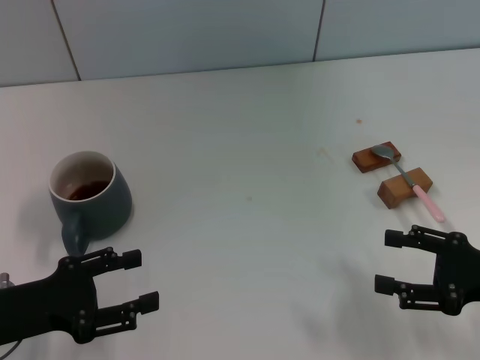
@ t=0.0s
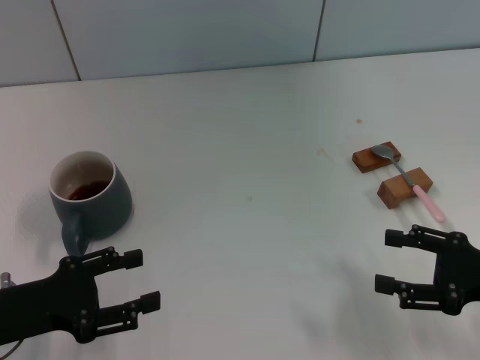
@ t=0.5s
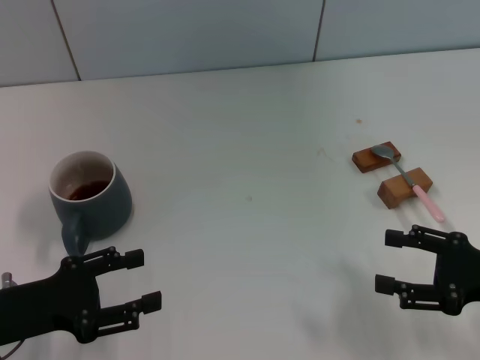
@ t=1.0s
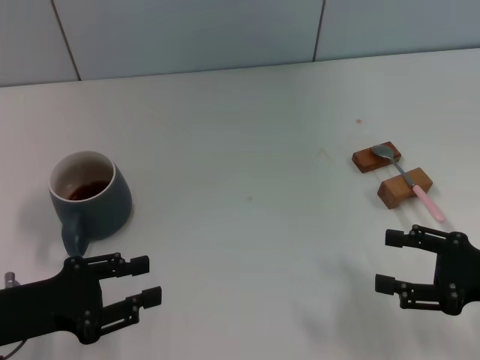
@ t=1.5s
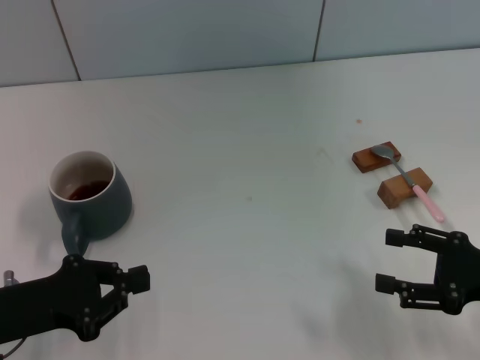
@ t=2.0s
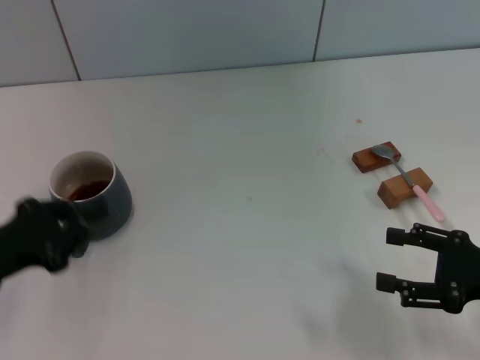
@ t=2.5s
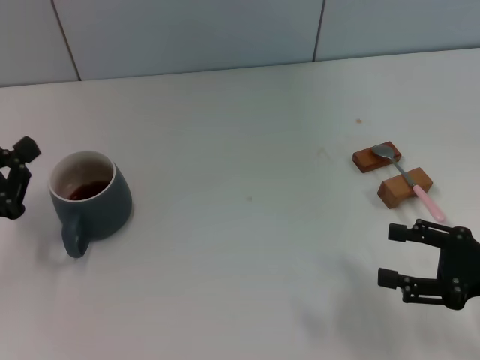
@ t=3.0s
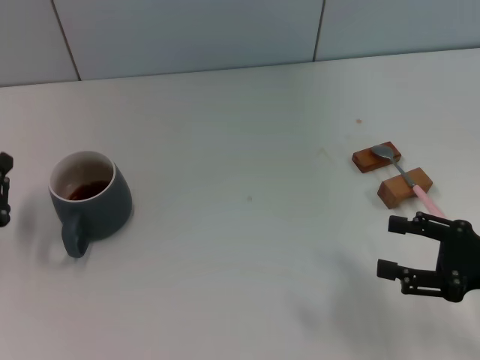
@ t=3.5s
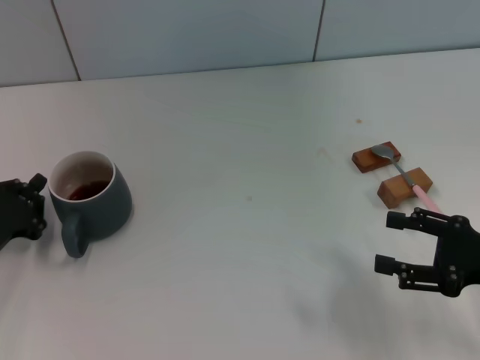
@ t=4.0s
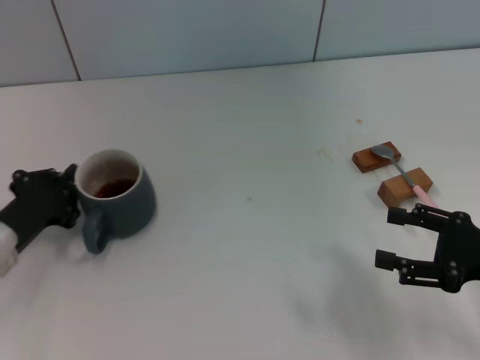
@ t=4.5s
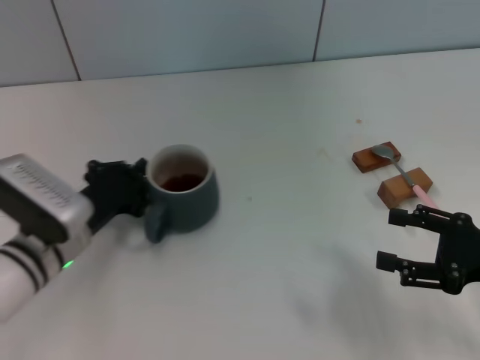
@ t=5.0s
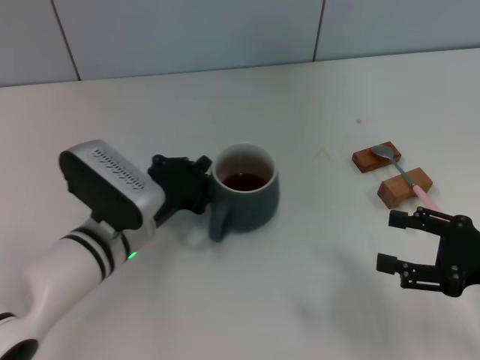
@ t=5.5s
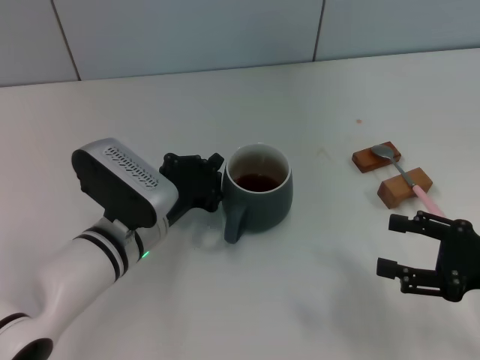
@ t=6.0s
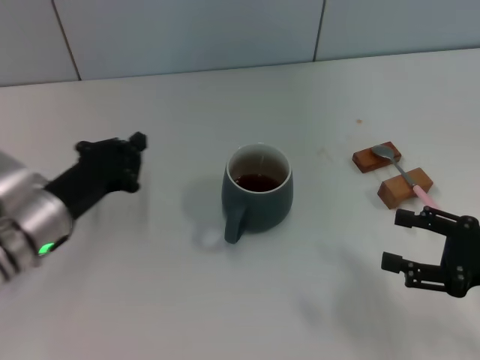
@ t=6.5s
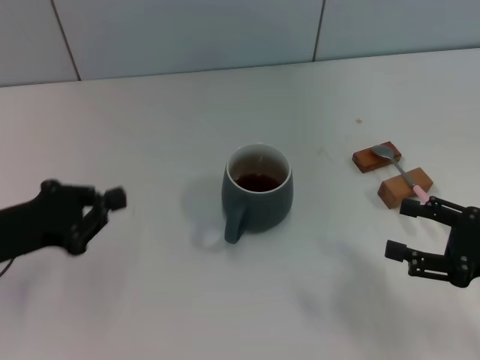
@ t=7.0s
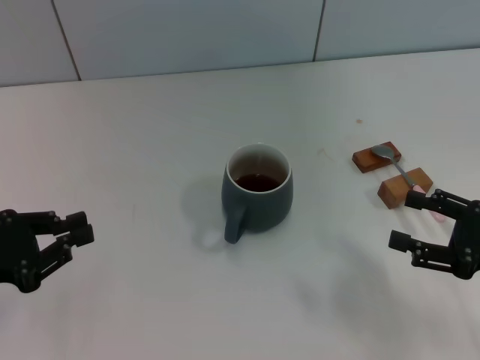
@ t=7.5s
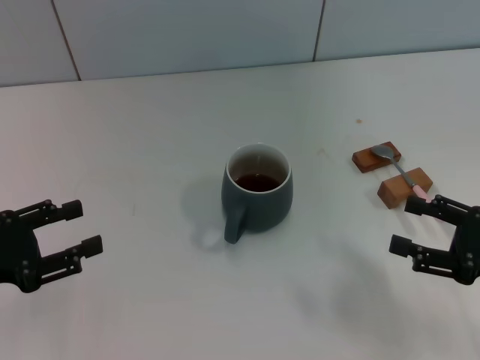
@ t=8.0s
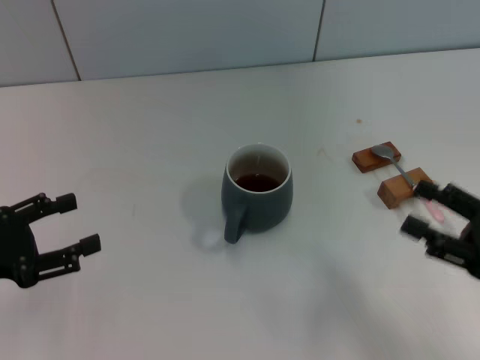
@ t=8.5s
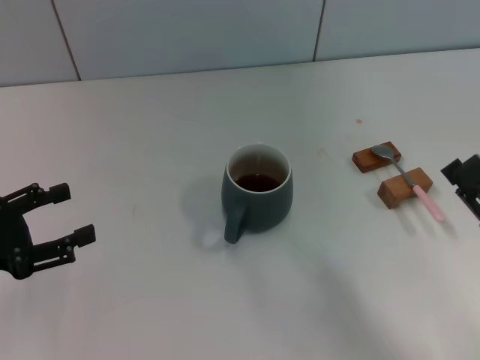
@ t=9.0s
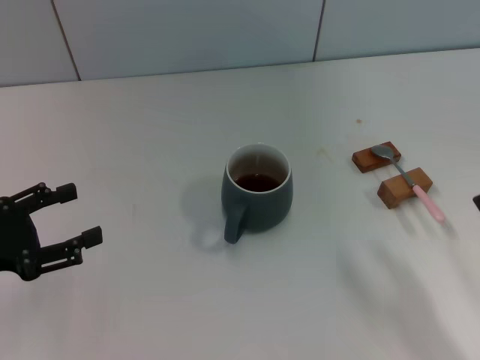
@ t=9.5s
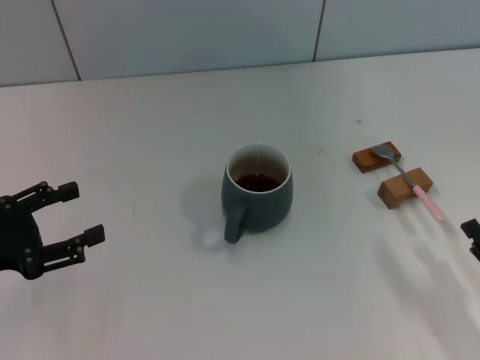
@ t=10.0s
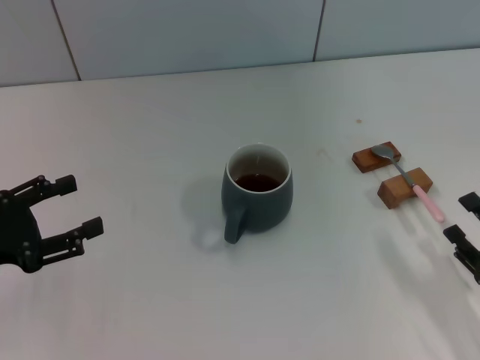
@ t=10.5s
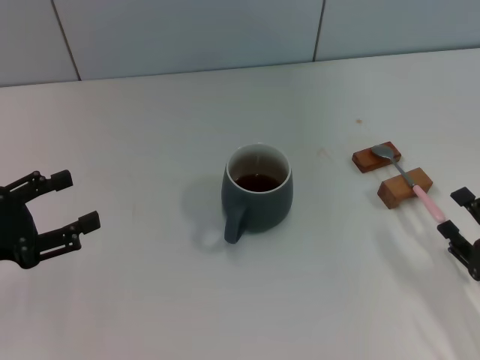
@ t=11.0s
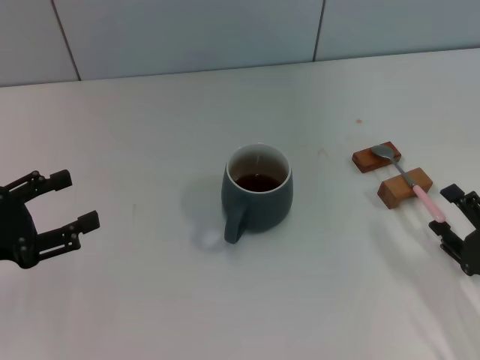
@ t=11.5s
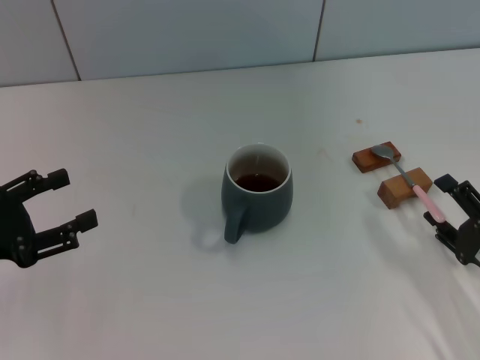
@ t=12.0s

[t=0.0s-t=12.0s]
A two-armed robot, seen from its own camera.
Task of the whole recording: Move the grey cup to the center, lift the pink spoon, stir it three times in the cup, and put the spoon into the cup.
Step, t=0.0s to t=6.5s: Move the cup with coffee to the center of view with the left gripper.
t=0.0s to t=2.0s: The left gripper closes.
t=2.0s to t=4.0s: The left gripper shifts by some 5 cm, and closes.
t=4.0s to t=6.0s: The left gripper travels to the right by about 20 cm.
t=6.0s to t=8.0s: The left gripper heads to the left, covering about 20 cm, and opens up.
t=8.0s to t=10.0s: The left gripper opens its fingers. Meanwhile the right gripper heads backward and downward, covering approximately 10 cm.
t=10.0s to t=12.0s: The right gripper shifts some 5 cm forward.

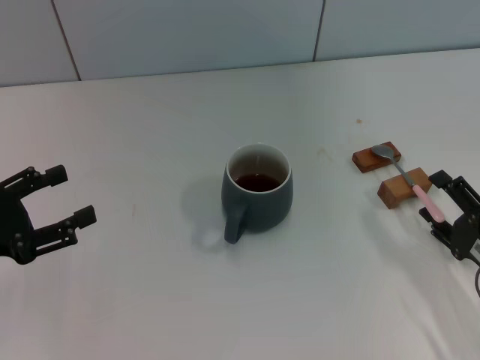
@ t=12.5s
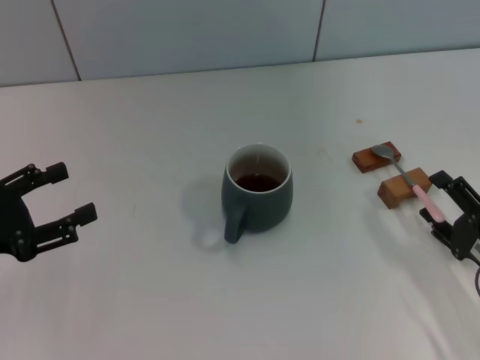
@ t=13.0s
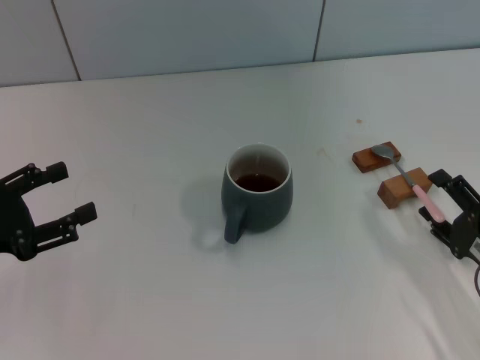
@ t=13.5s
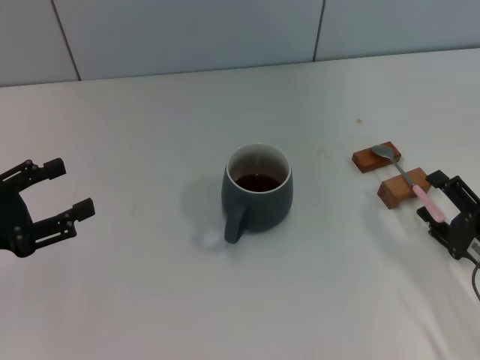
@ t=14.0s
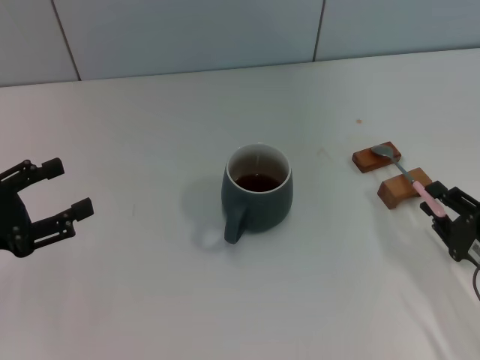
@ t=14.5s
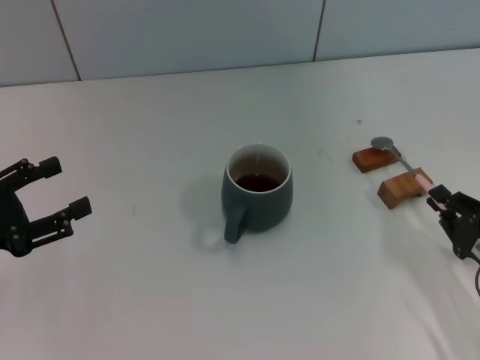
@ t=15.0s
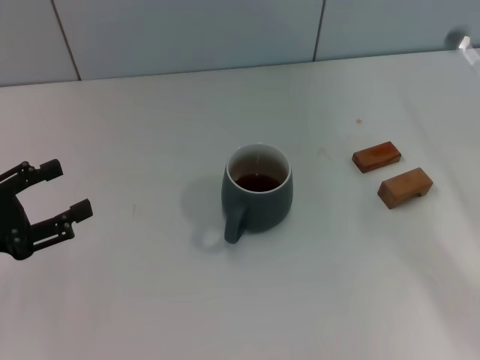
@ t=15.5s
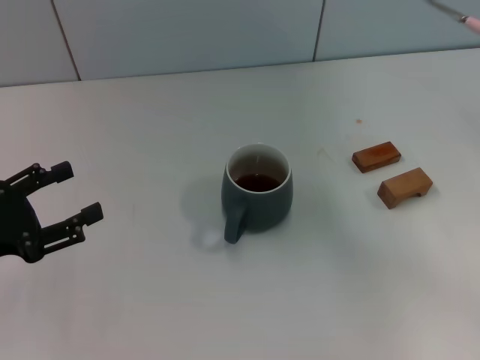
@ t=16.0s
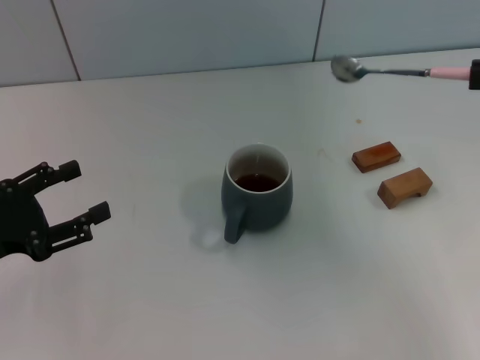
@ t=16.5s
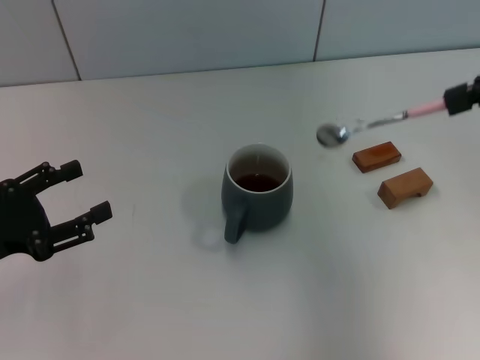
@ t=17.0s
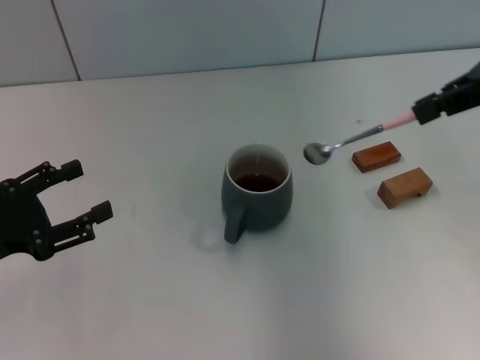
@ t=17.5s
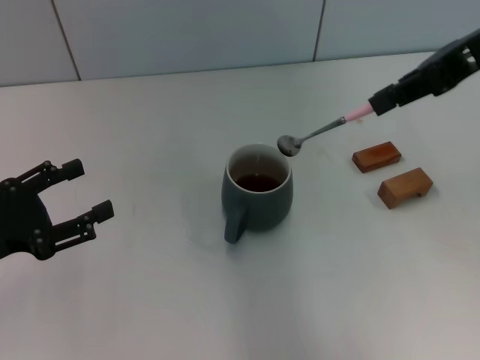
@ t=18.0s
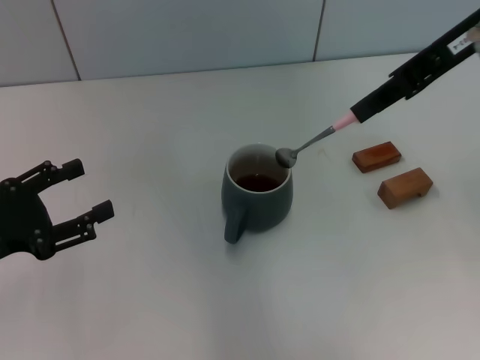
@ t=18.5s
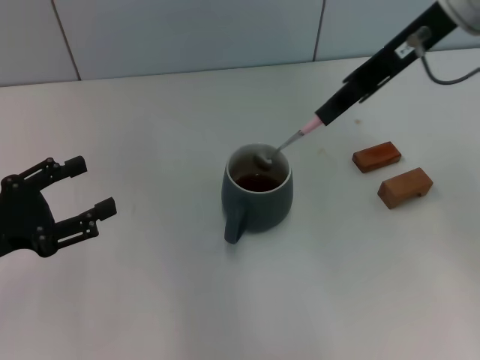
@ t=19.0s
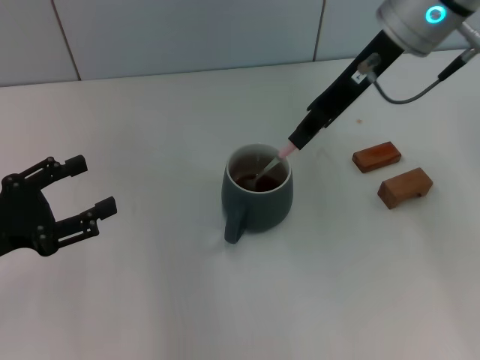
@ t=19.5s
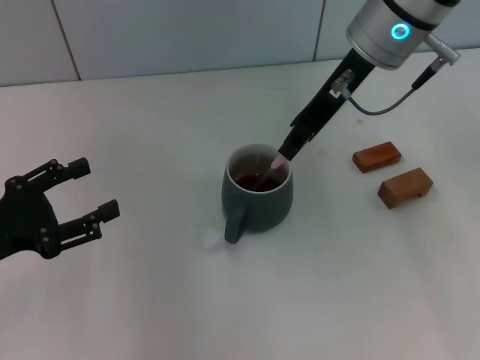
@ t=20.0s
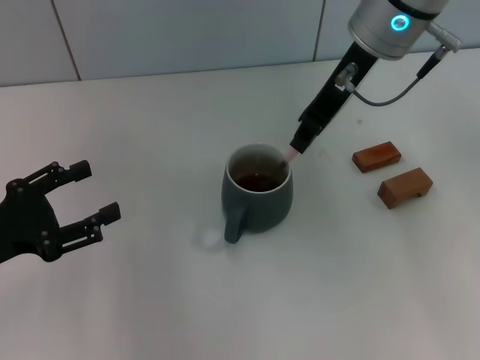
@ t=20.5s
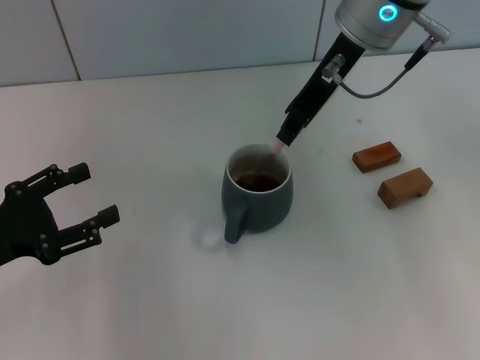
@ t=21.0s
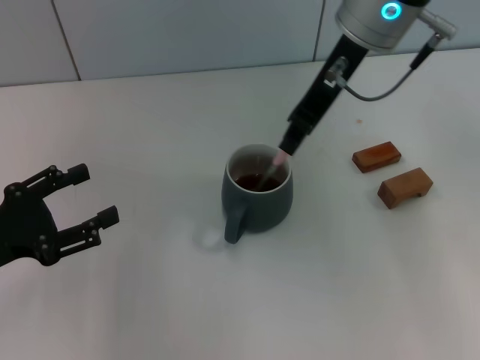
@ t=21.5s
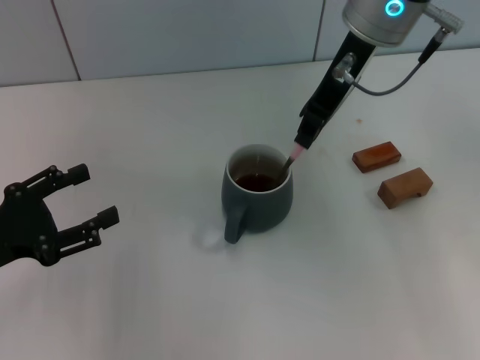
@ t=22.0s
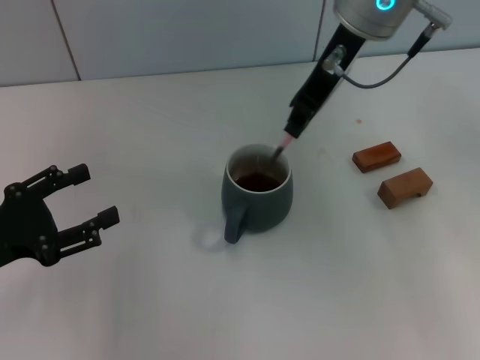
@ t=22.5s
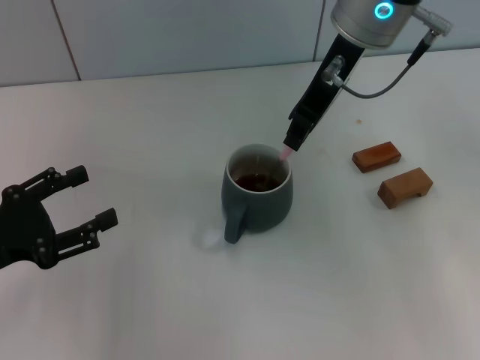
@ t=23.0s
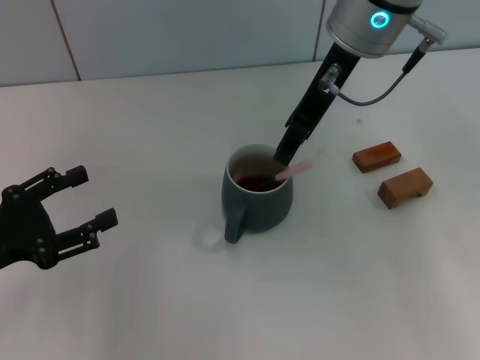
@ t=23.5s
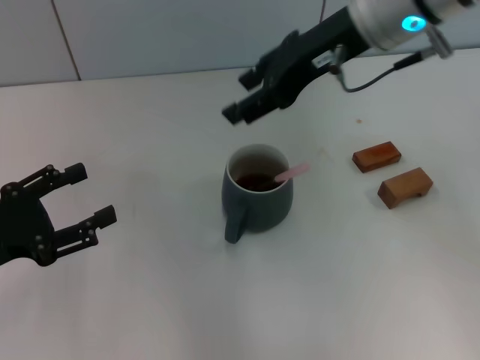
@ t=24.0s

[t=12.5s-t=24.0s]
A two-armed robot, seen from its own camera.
Task of the whole recording: Move the grey cup to the center, lift the pink spoon, stir it three times in the cup, and put the spoon into the cup.
Step, t=12.5s to t=15.0s: Pick up the spoon with the right gripper.
Step, t=15.5s to t=23.5s: Stir the coffee in the cup with the right gripper.
t=12.5s to t=14.5s: Neither gripper changes place.
t=14.5s to t=16.5s: The right gripper heads upward, covering approximately 25 cm, and closes.
t=16.5s to t=18.5s: The right gripper moves to the left and forward, some 15 cm.
t=18.5s to t=20.0s: The right gripper heads to the left and downward, covering approximately 10 cm.
t=20.0s to t=22.0s: The grippers stay close to where they were, moving slightly.
t=22.0s to t=24.0s: The right gripper opens its fingers.

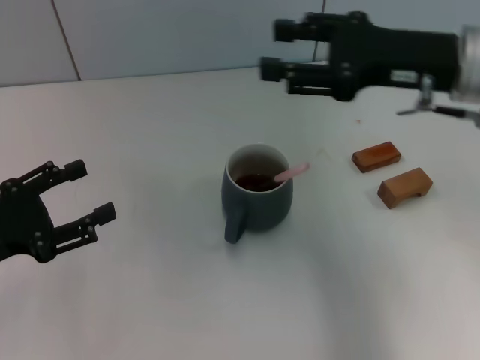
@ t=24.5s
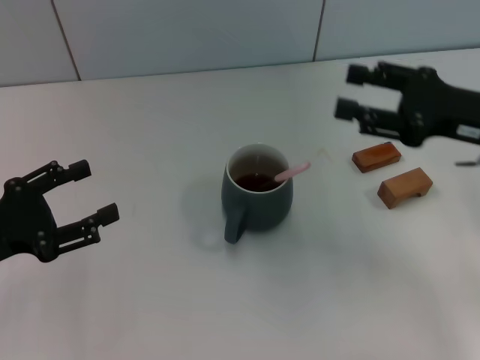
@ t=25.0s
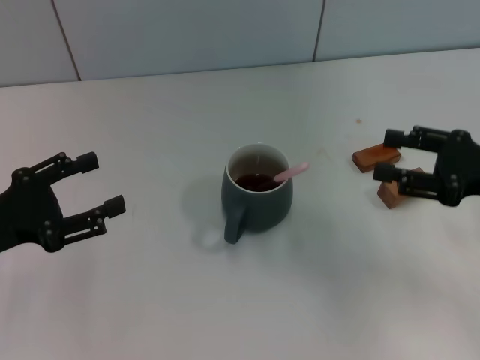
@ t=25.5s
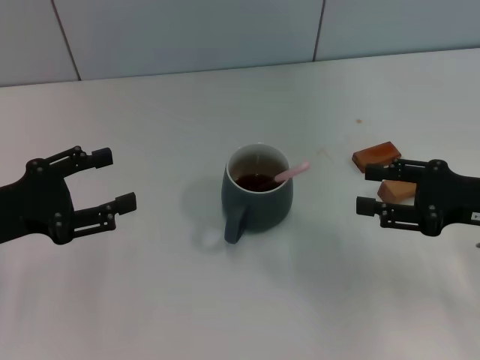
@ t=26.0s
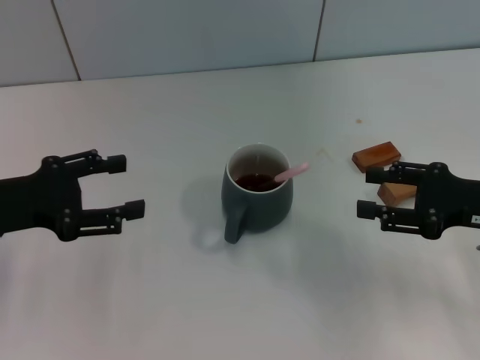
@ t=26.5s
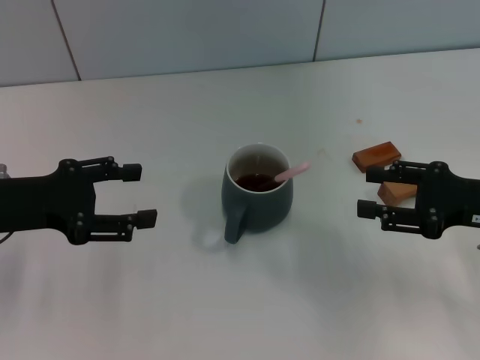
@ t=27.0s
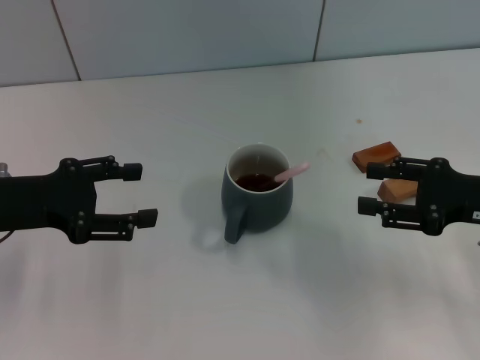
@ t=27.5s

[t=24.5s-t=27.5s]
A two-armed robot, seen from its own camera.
Task of the whole recording: Move the grey cup to the center, lift the pink spoon, stir it three times in the cup, and put the spoon into the cup.
t=24.5s to t=26.0s: The right gripper shifts roughly 15 cm downward, to the right and backward.
t=26.0s to t=27.5s: The grippers stay close to where they were, moving slightly.
